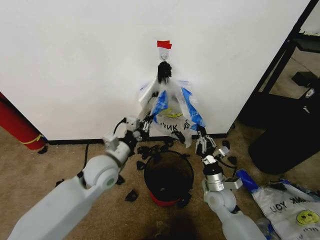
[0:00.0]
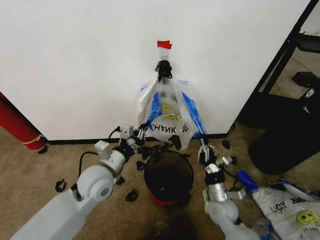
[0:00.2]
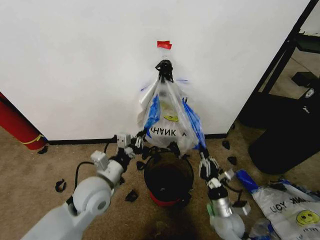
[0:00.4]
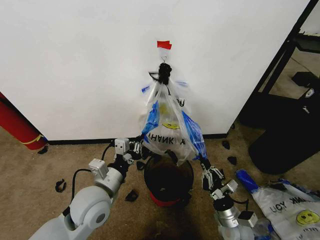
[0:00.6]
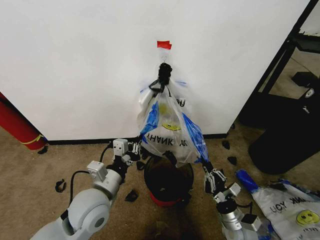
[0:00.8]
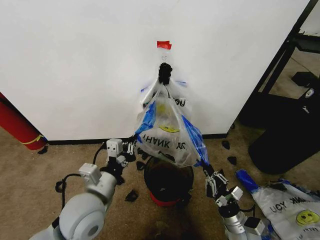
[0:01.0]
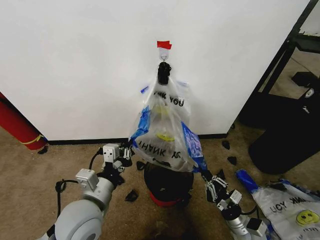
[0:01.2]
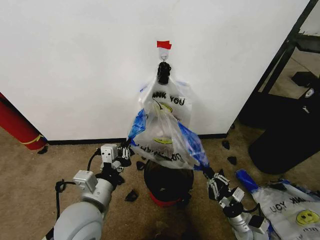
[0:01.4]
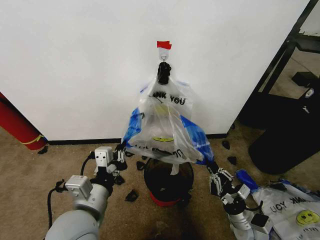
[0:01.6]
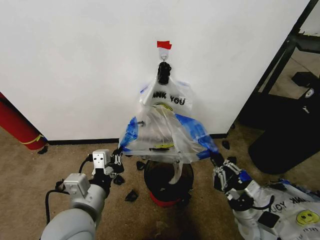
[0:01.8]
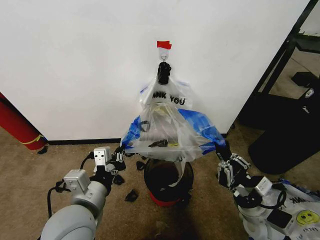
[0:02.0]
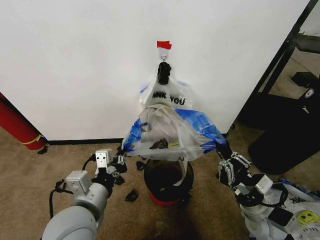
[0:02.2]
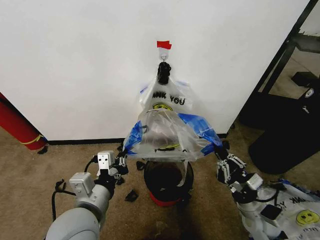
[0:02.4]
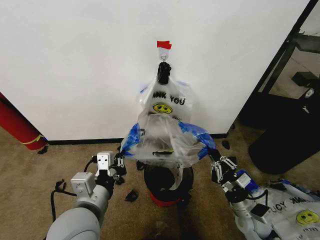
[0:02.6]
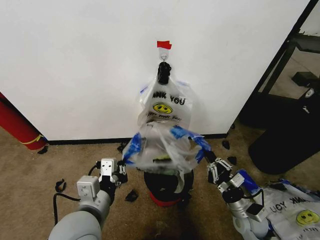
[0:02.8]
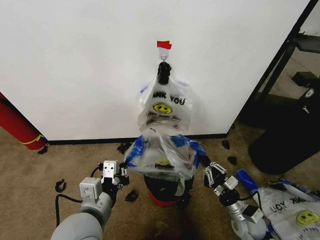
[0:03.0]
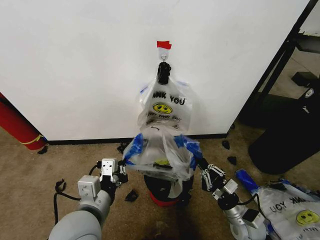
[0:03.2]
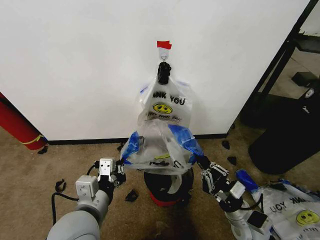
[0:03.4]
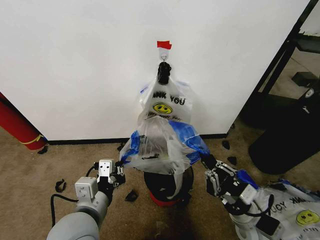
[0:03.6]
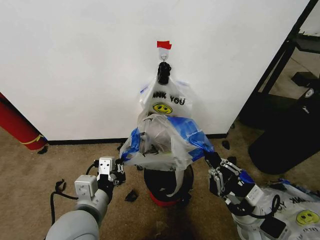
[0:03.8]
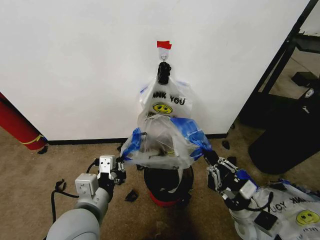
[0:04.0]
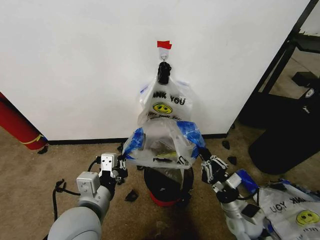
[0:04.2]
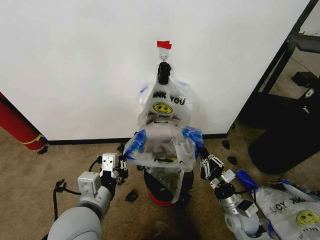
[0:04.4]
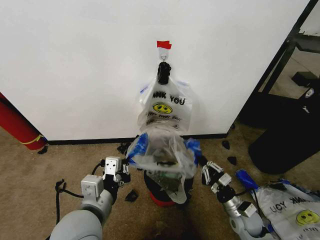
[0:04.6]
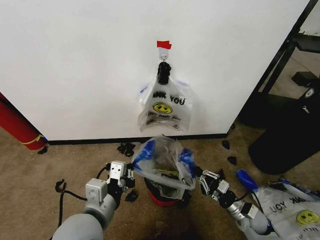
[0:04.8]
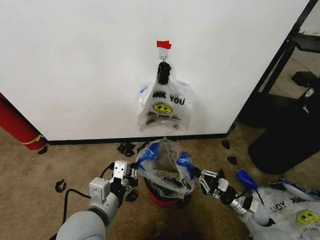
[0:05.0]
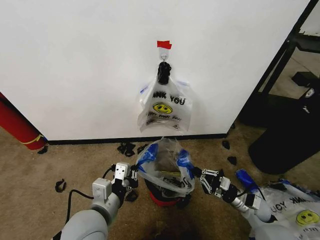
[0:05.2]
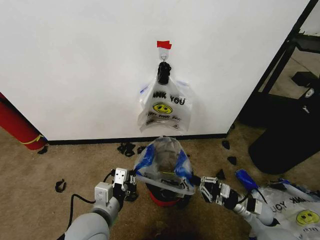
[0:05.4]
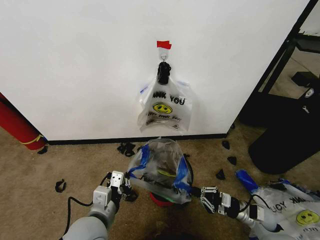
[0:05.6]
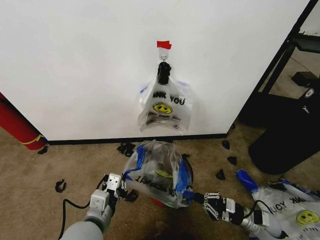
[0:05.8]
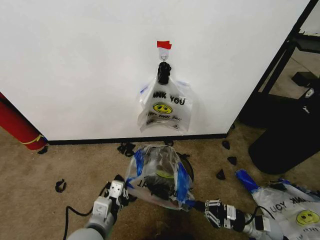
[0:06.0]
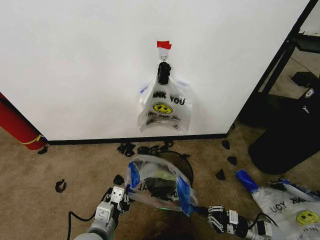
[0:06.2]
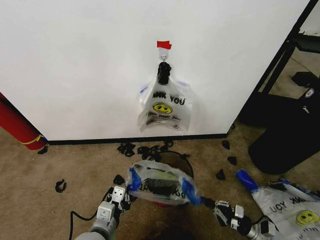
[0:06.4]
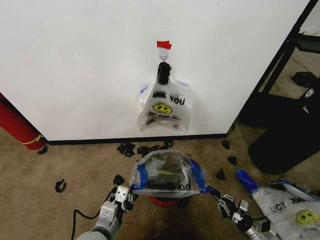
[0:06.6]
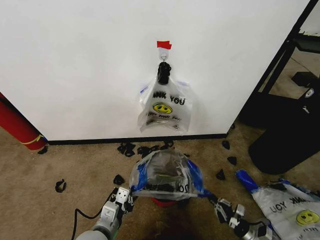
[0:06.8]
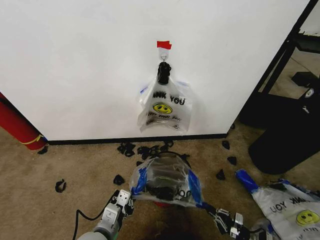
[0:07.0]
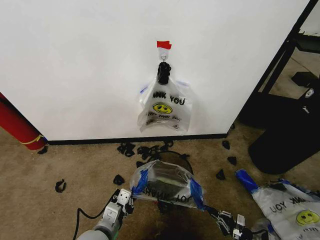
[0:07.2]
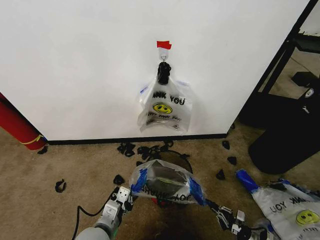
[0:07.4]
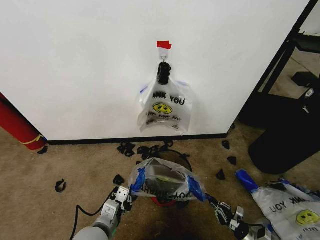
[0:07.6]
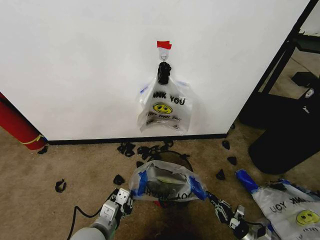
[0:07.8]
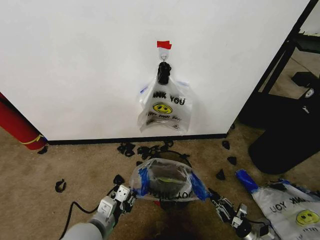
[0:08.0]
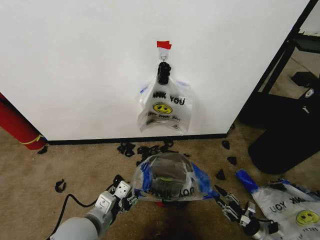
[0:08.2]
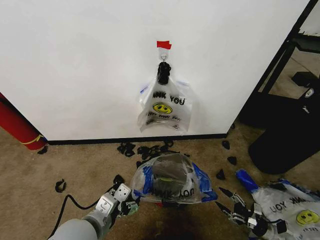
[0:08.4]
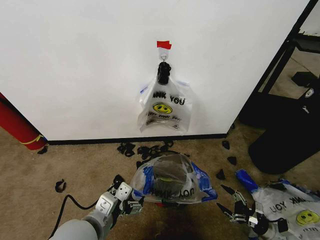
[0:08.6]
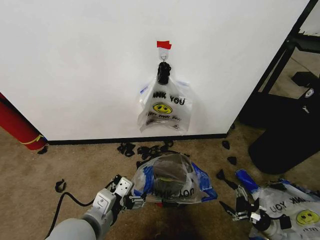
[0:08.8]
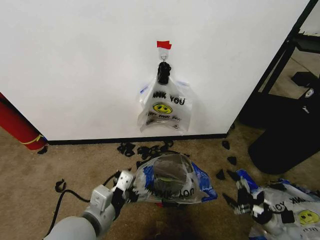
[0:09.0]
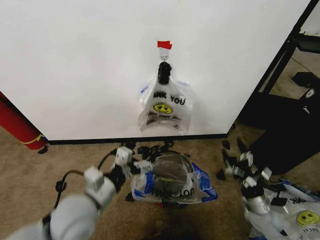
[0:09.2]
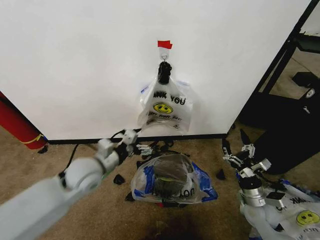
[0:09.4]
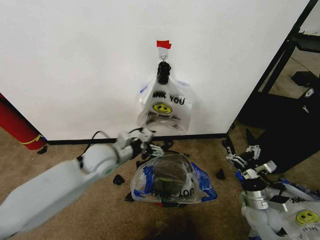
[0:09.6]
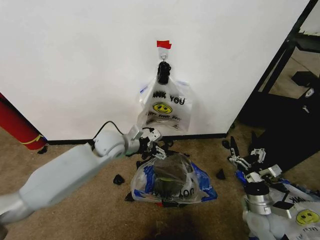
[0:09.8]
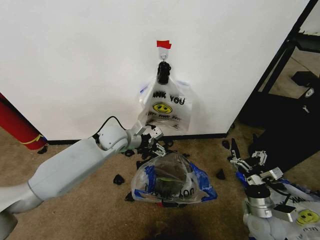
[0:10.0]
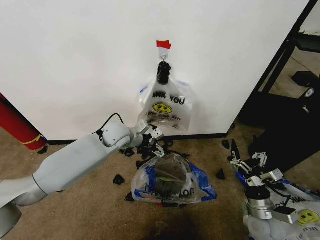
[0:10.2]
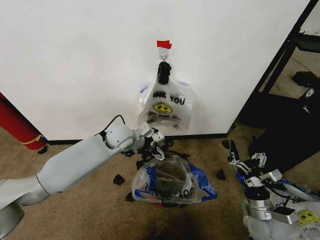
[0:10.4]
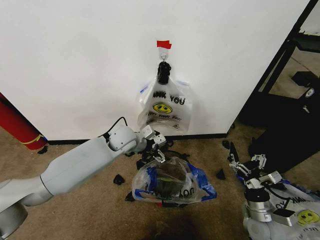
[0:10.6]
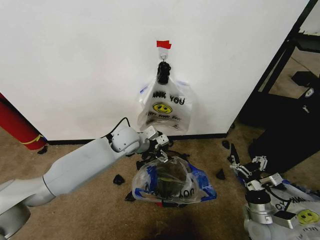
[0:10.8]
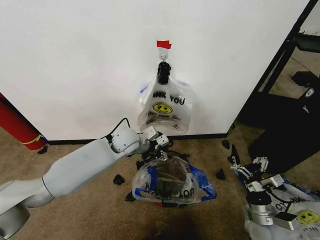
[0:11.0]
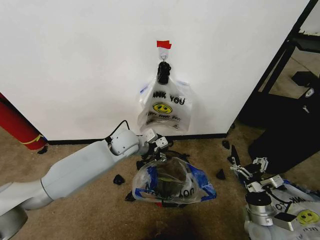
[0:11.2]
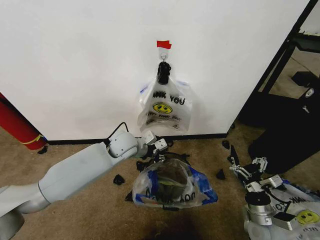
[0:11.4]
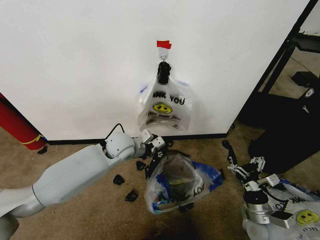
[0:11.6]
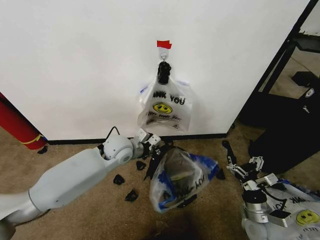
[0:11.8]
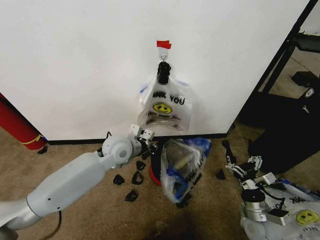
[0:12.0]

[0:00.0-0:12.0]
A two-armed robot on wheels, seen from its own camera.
Task of the whole recording: Pick up the garbage bag from the wall and place it over the trash bin.
0.0 to 1.6 s: The left gripper goes roughly 15 cm backward, while the right gripper shifts some 10 cm backward and to the right.
1.6 to 3.0 s: The right gripper moves some 10 cm upward and comes back.
3.0 to 4.4 s: The right gripper travels upward and back again, roughly 10 cm each way.
4.4 to 6.0 s: The right gripper travels to the right and downward by some 15 cm. Meanwhile the left gripper goes some 10 cm downward.
6.0 to 7.6 s: The right gripper travels downward and backward by about 15 cm.
7.6 to 9.0 s: The right gripper heads upward and forward, covering approximately 15 cm, and opens; the left gripper goes roughly 10 cm upward, and opens.
9.0 to 10.4 s: The right gripper shifts approximately 15 cm to the left and upward, while the left gripper is displaced forward by roughly 30 cm.
10.4 to 12.0 s: The left gripper travels backward by approximately 5 cm, and closes up.

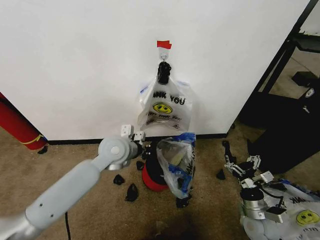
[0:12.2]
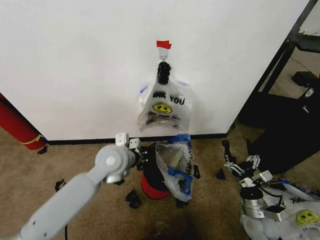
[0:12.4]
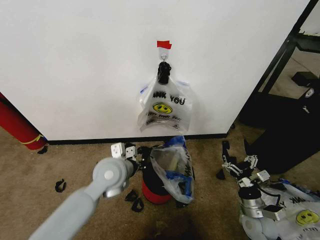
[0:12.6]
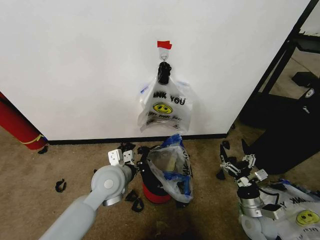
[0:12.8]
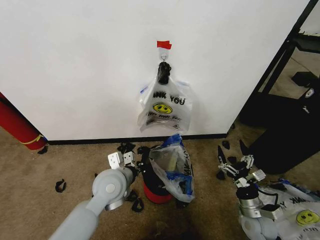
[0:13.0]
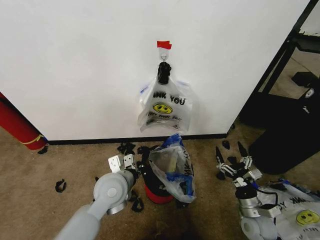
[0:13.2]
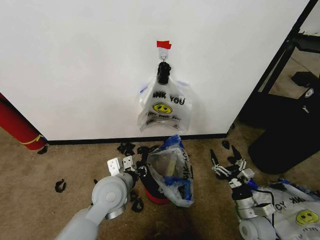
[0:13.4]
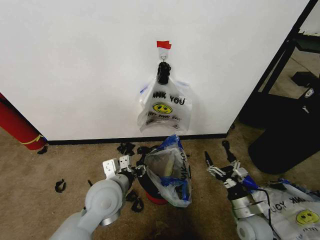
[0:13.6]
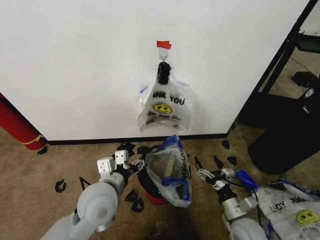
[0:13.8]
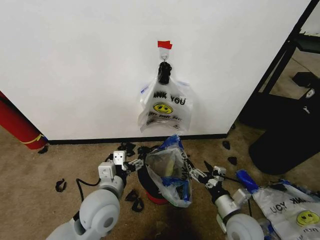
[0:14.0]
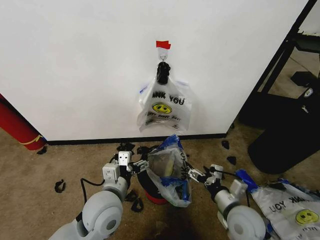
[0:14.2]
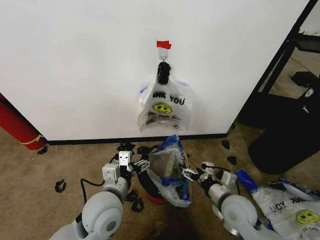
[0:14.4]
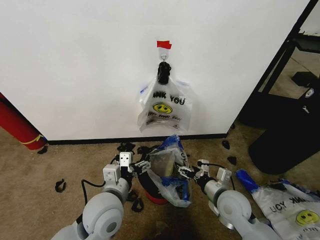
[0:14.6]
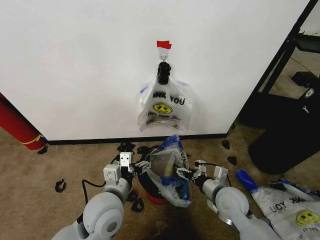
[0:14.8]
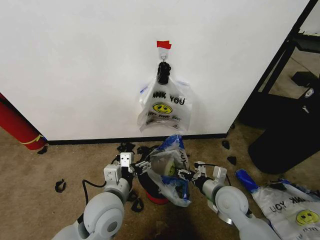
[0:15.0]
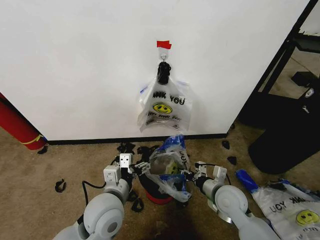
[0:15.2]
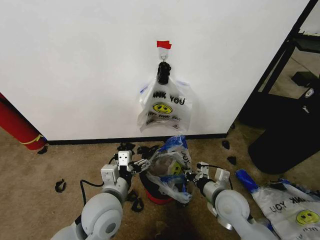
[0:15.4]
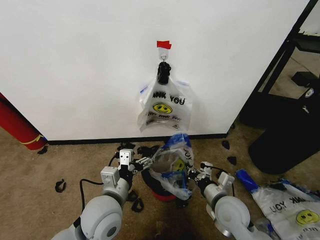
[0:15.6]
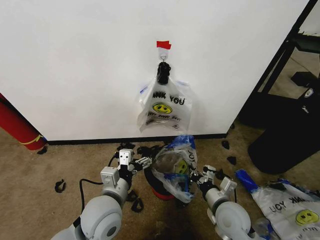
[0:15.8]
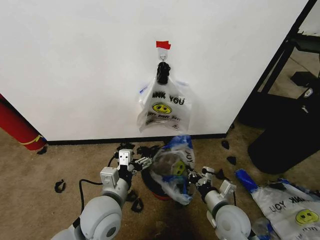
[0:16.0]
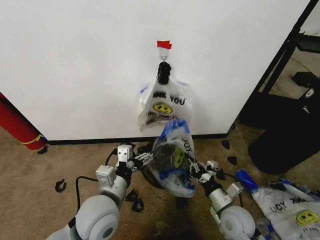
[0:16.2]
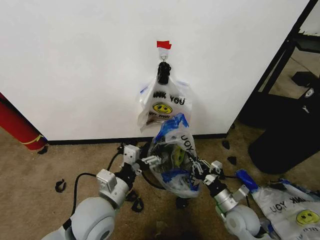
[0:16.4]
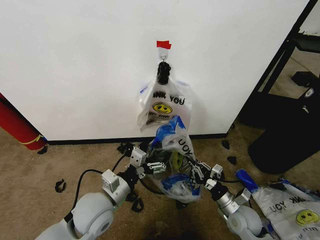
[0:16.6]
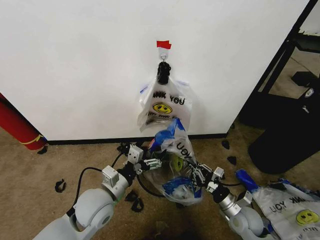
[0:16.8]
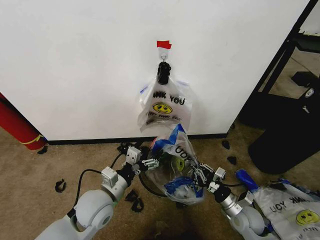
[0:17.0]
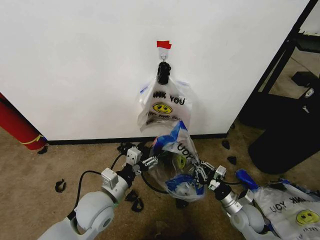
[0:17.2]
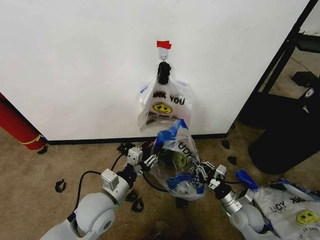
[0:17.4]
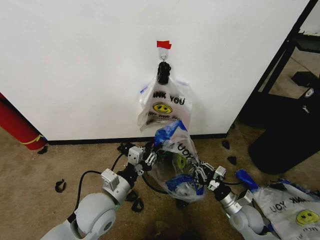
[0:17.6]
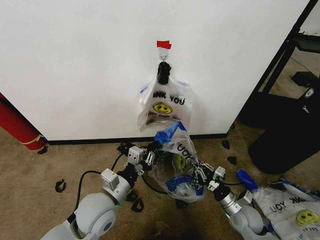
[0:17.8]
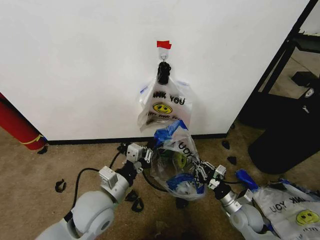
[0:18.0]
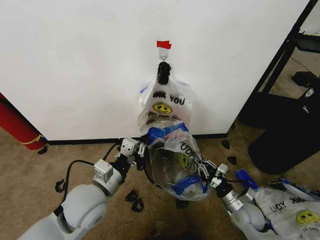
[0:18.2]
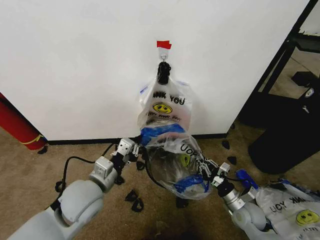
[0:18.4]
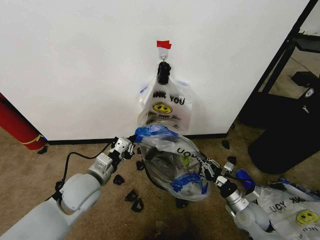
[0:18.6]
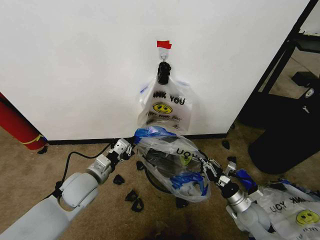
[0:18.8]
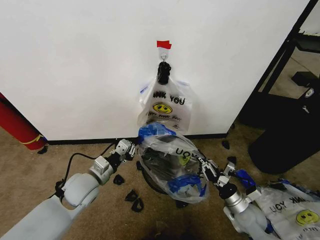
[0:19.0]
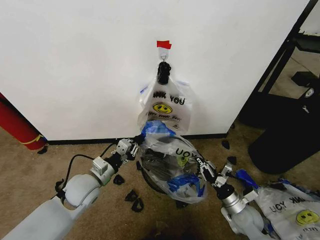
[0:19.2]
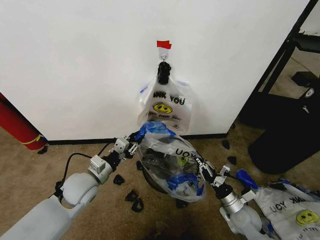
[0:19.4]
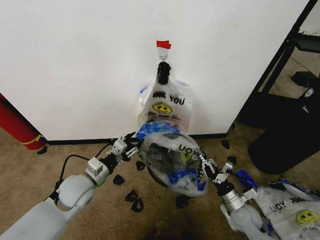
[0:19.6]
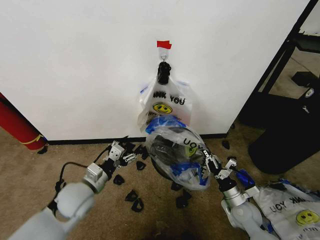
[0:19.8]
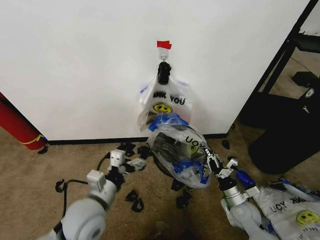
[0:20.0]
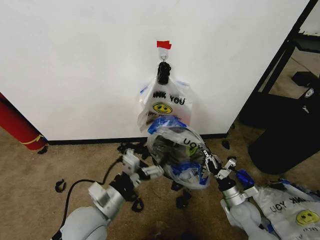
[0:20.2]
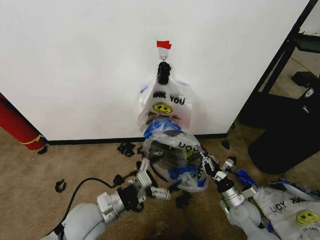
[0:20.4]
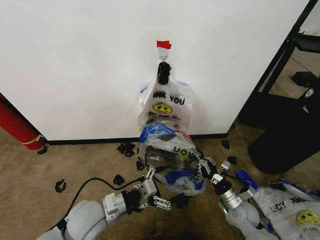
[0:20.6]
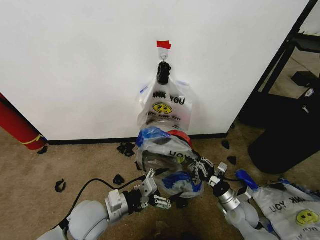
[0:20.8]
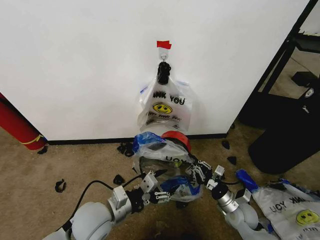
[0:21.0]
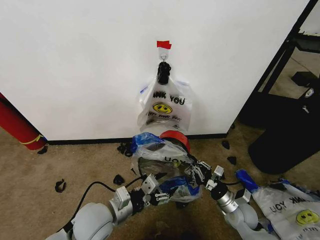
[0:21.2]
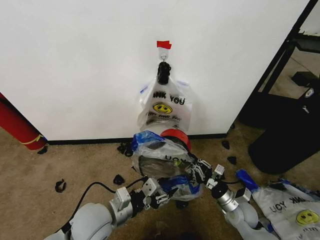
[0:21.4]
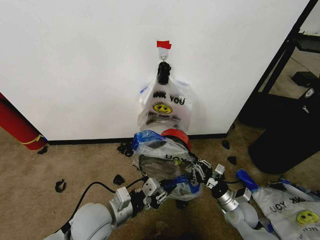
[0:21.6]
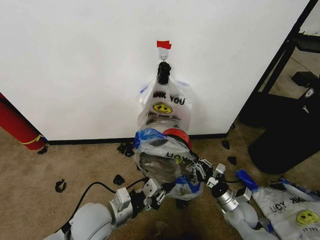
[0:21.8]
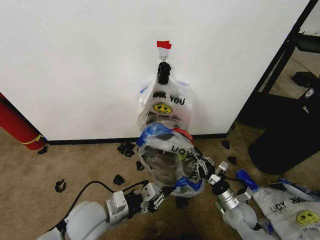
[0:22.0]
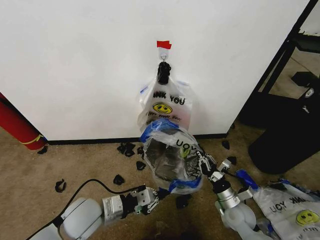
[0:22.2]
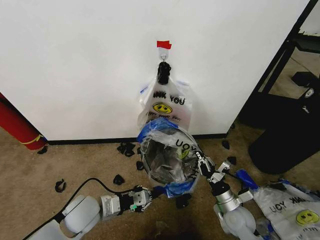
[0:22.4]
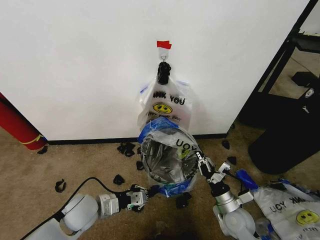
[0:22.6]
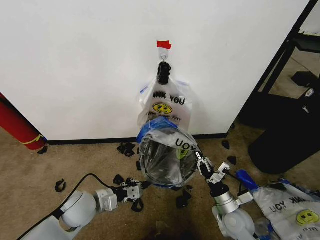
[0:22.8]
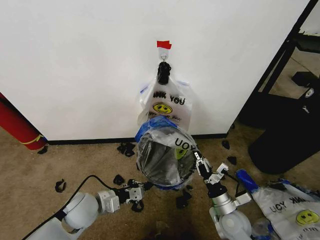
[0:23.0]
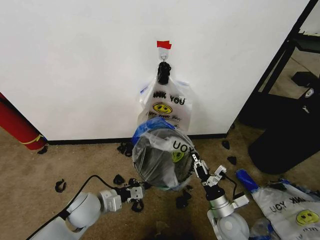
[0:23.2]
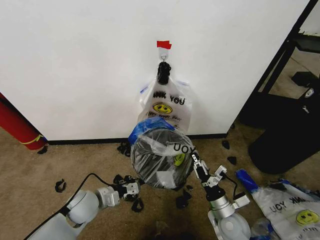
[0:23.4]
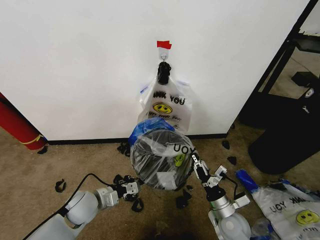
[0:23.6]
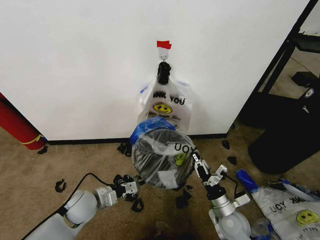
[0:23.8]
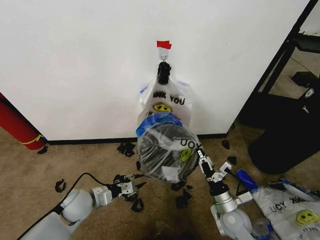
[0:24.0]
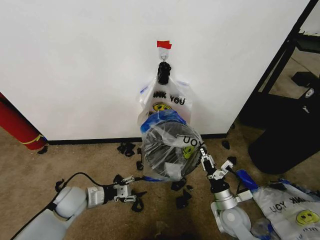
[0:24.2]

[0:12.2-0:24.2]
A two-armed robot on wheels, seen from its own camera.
Task of the whole recording: Pick up the garbage bag from the wall and place it over the trash bin.
12.2 to 13.8 s: The left gripper moves backward, roughly 15 cm, and opens its fingers, while the right gripper travels to the left by approximately 5 cm.
13.8 to 15.2 s: The right gripper heads forward and upward, covering about 10 cm, and closes up.
15.2 to 16.6 s: The right gripper heads downward and to the right, covering some 10 cm, and closes its fingers.
16.6 to 18.2 s: The left gripper closes up.
18.2 to 19.8 s: The left gripper shifts about 10 cm to the left and downward, and opens its fingers.
19.8 to 21.2 s: The left gripper heads to the right and backward, covering some 10 cm.
21.2 to 22.6 s: The left gripper is displaced to the left by approximately 5 cm, and closes.
22.6 to 24.2 s: The left gripper shifts approximately 5 cm to the left, and opens its fingers.
